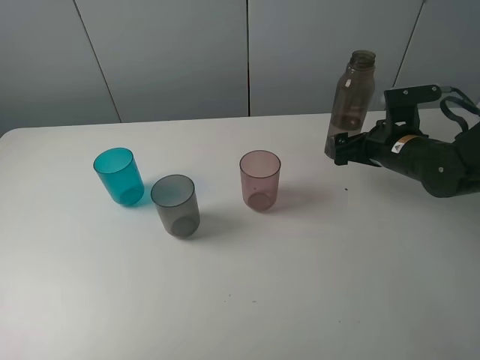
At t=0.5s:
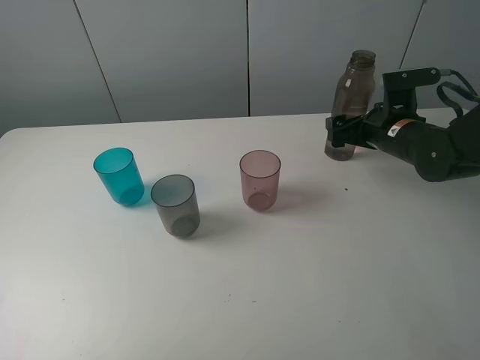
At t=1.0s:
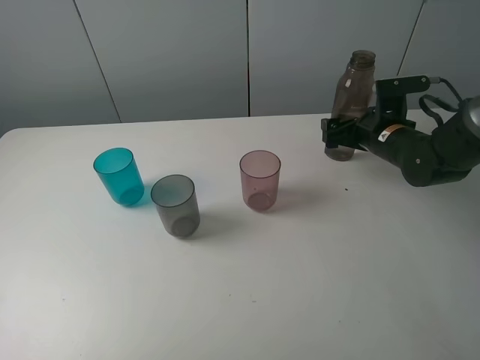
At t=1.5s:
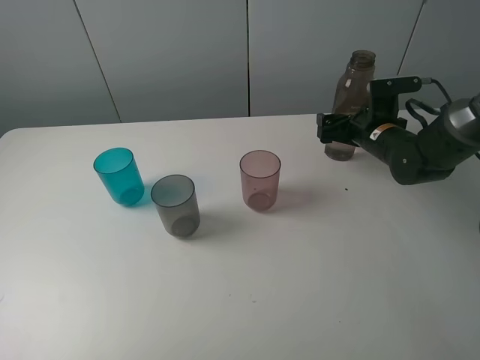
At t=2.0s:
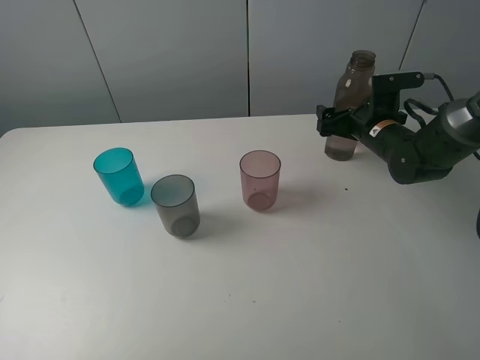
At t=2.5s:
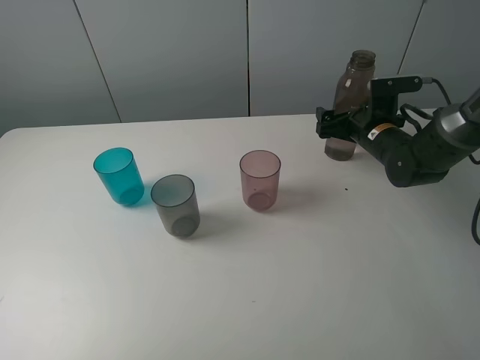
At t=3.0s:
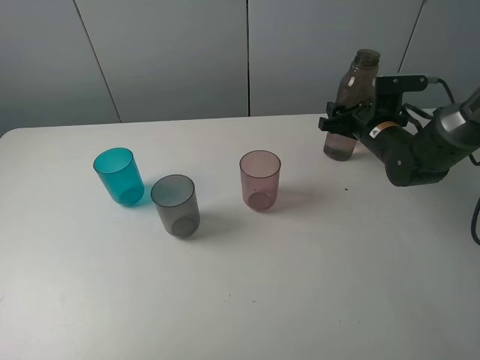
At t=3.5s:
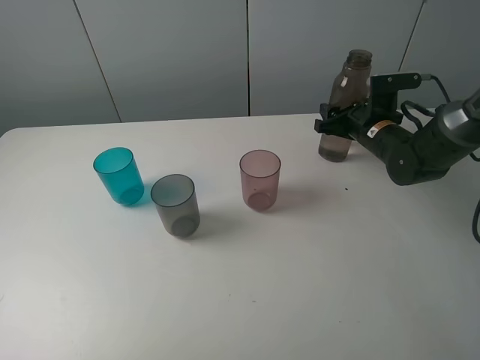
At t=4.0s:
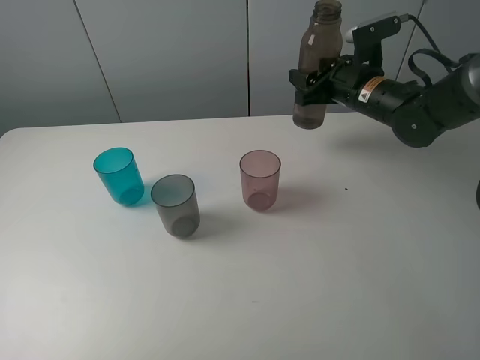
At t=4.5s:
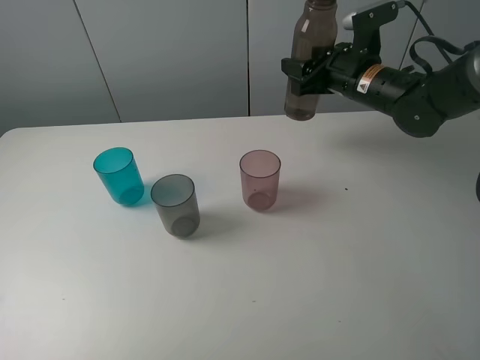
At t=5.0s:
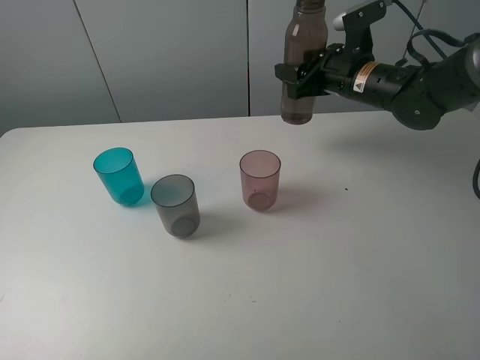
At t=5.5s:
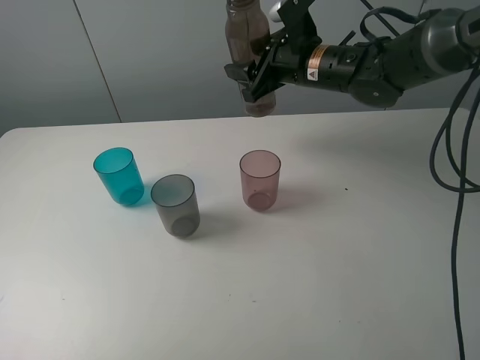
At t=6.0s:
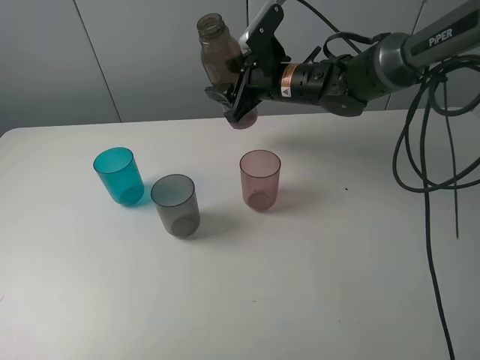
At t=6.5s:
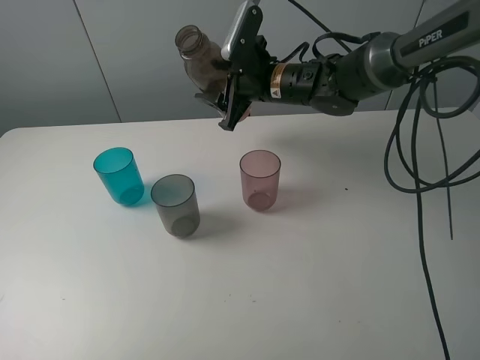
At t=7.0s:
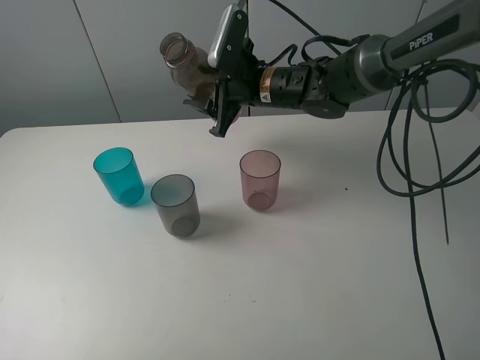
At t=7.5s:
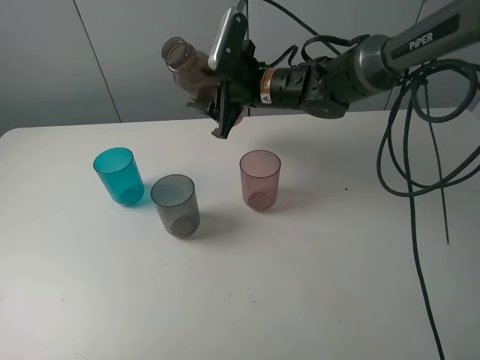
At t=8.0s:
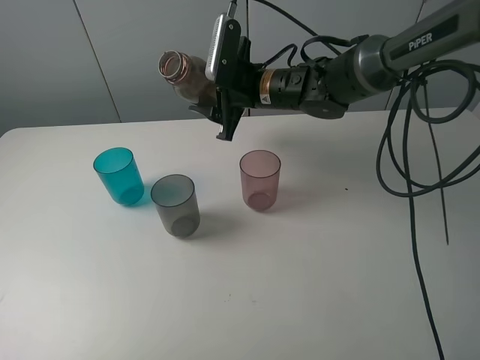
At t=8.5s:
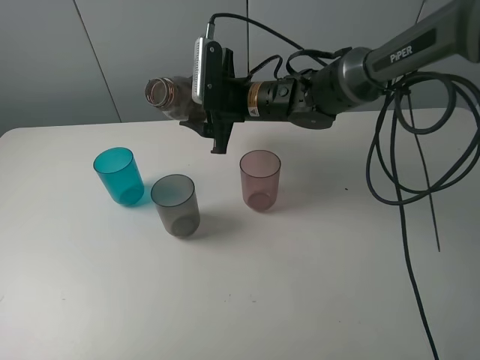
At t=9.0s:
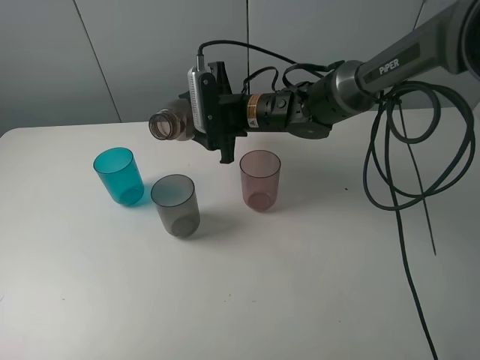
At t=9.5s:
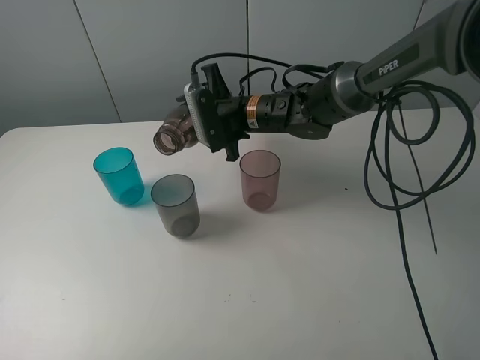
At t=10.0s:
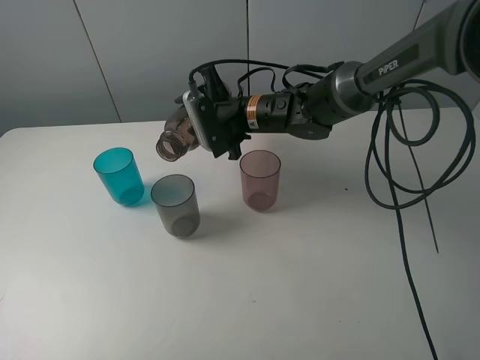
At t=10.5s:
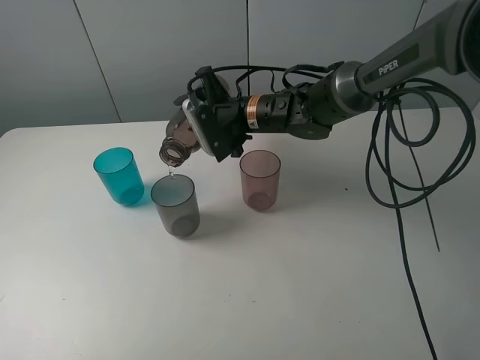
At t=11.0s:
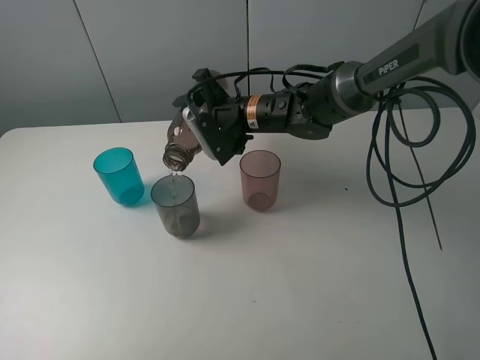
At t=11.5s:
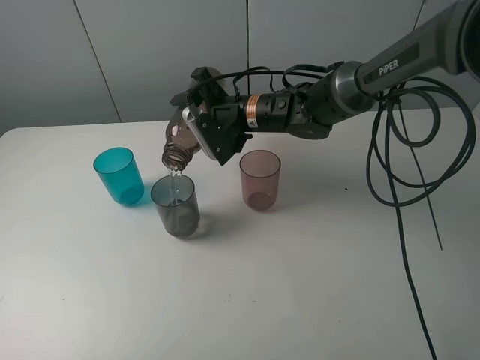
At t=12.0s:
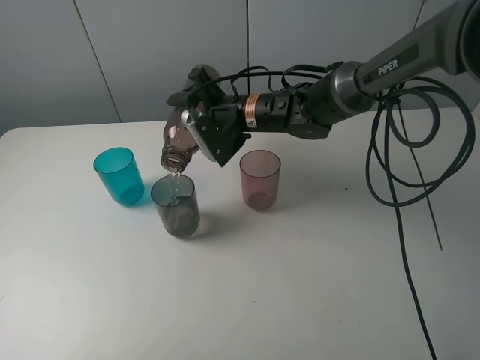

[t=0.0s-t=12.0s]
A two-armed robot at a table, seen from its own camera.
Task of the whole recording: pick up the bottle filled with water and pour water into the middle cup of the three cups.
Step, t=0.0s to t=3.0s: Grasp the brown bottle with the right gripper.
Step, t=3.5s to t=9.5s: Pour water from transparent bottle to grey cup with the right gripper.
t=0.0s to t=2.0s: The right gripper travels forward by approximately 5 cm.
t=2.0s to t=4.0s: The right gripper travels upward by approximately 5 cm, and closes its fingers.
t=4.0s to t=6.0s: The right gripper shifts about 10 cm to the left.
t=10.0s to t=12.0s: There are only small adjustments of the grippers.

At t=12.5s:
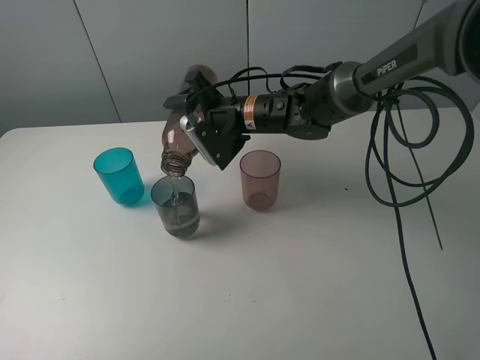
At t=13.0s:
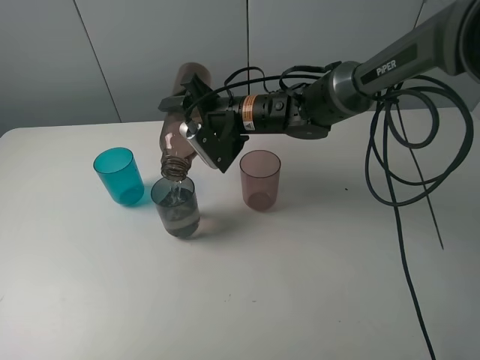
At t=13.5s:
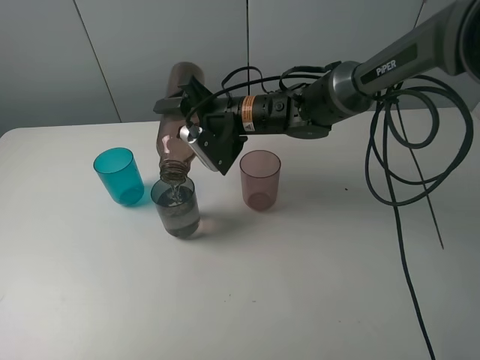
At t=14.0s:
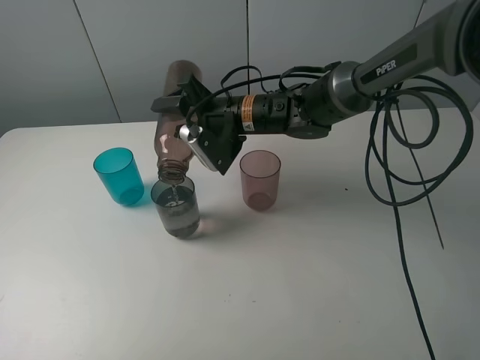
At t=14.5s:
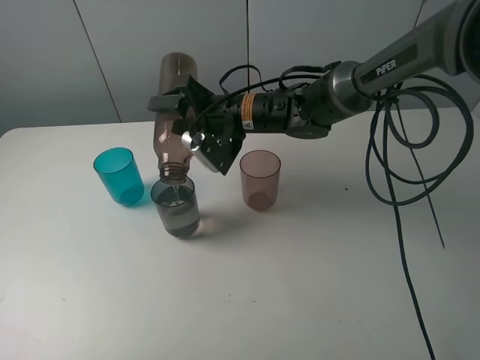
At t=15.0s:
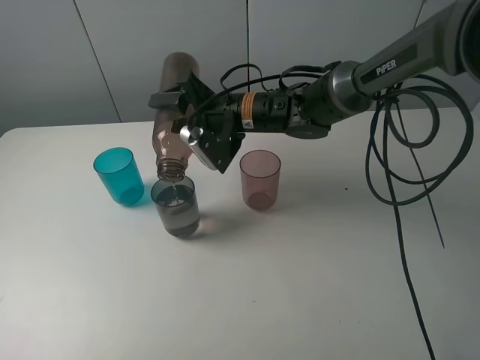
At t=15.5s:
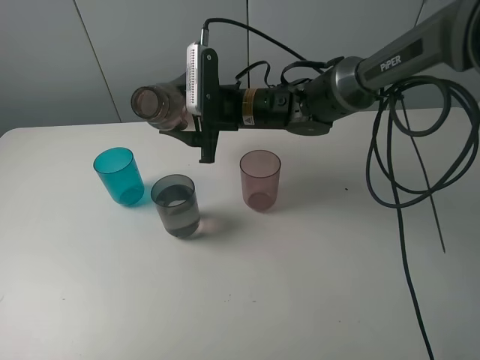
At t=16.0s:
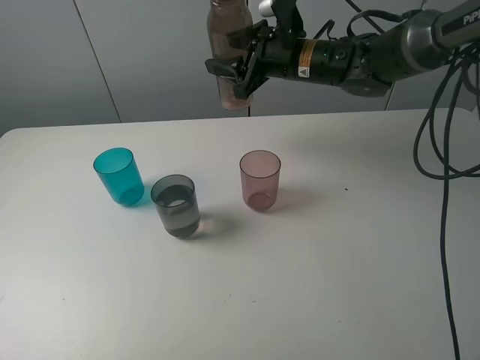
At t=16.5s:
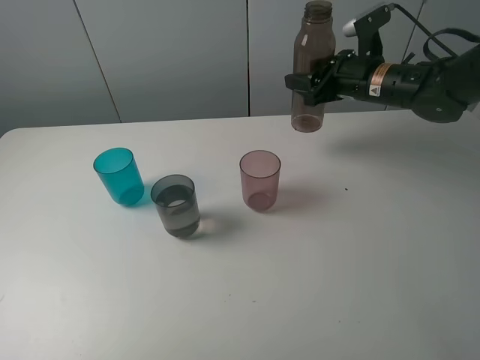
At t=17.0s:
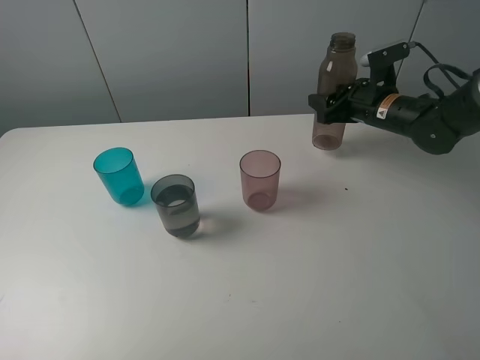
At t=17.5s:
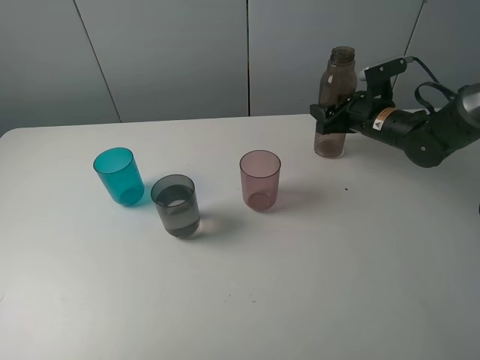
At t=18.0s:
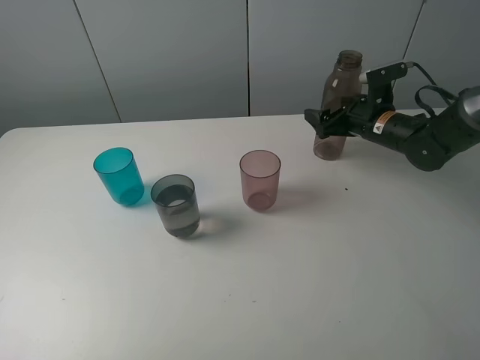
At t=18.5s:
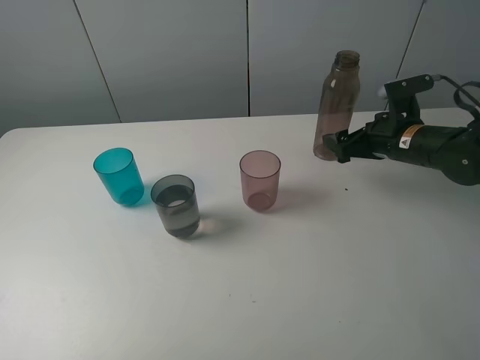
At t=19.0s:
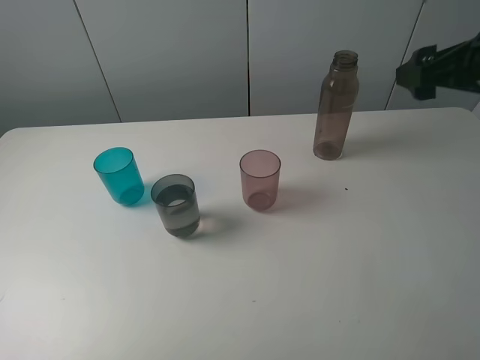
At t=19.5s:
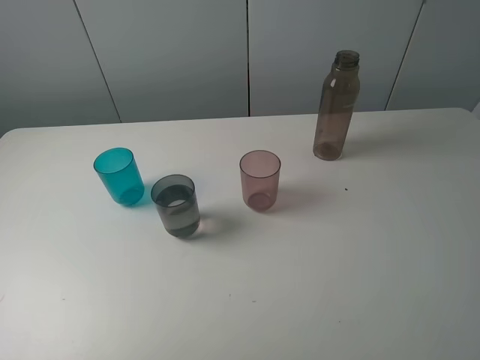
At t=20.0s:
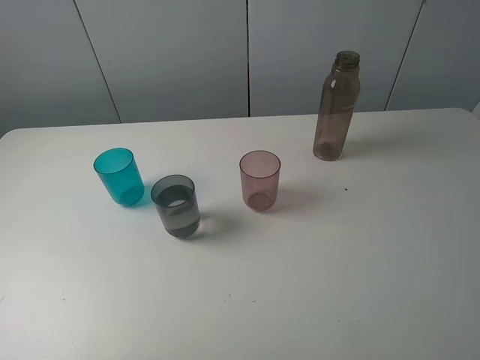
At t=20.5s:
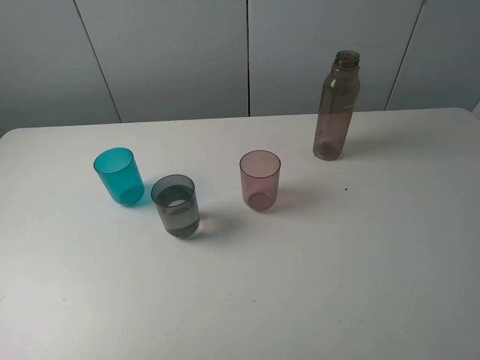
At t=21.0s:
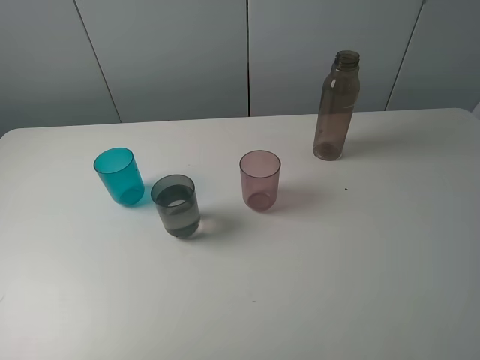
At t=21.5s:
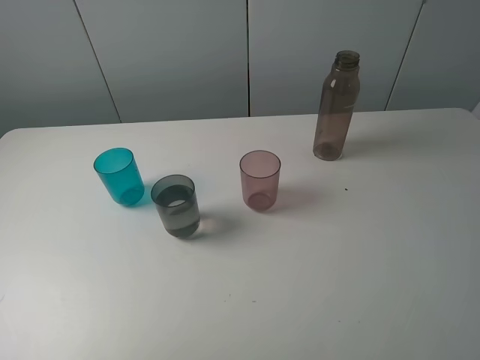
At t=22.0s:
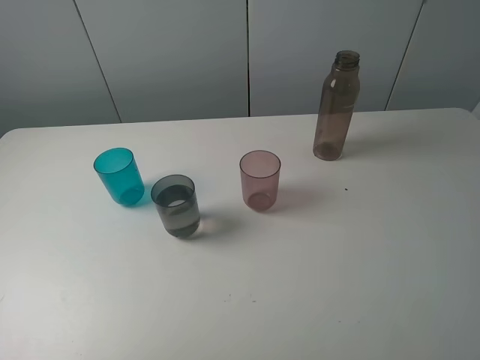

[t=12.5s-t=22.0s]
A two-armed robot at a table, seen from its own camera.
Task of the whole recording: pick up the bottle filled with water and pour water into the middle cup of the three cups.
Step, t=12.5s to t=18.5s: Place the brown bottle with the right gripper.
t=12.5s to t=14.5s: The grippers make only small movements.
t=14.5s to t=16.5s: The right gripper travels to the right by approximately 20 cm.
t=16.5s to t=18.0s: The right gripper is displaced downward by about 5 cm, and opens its fingers.
t=18.0s to t=20.0s: The right gripper travels backward and upward by some 50 cm.
